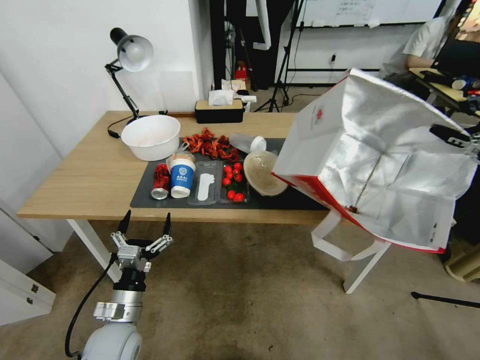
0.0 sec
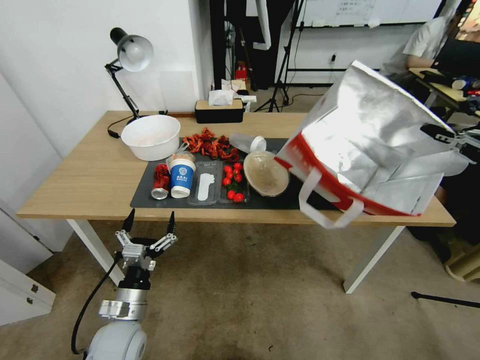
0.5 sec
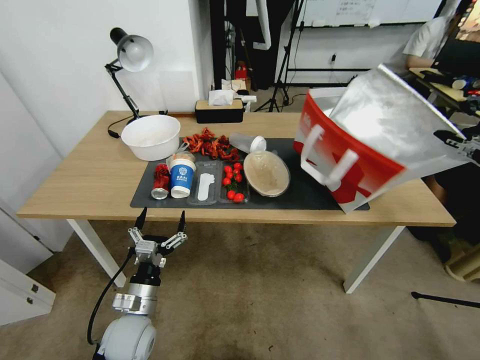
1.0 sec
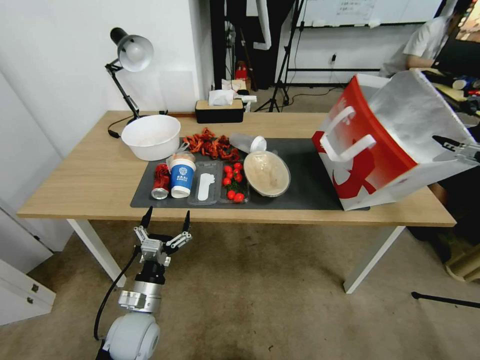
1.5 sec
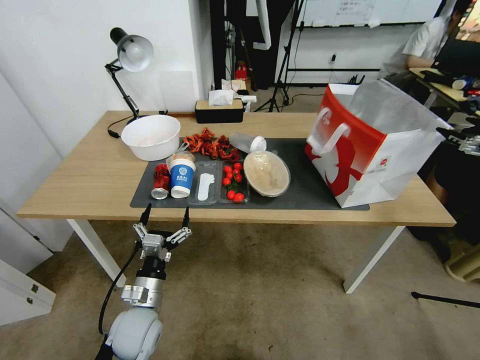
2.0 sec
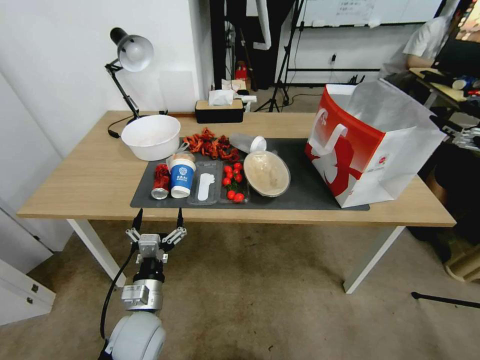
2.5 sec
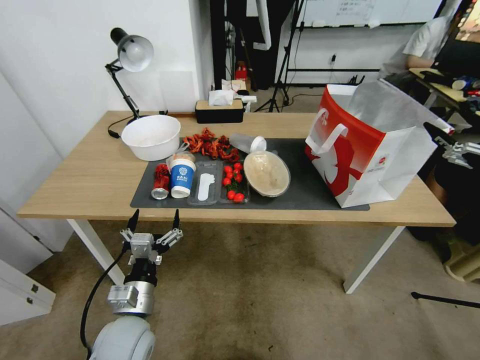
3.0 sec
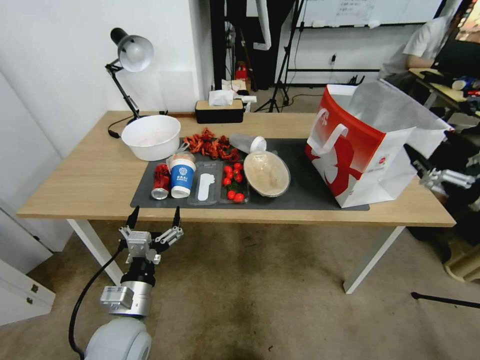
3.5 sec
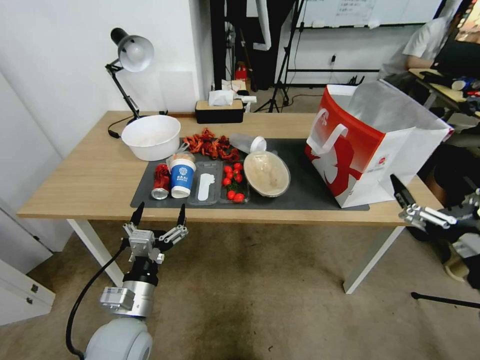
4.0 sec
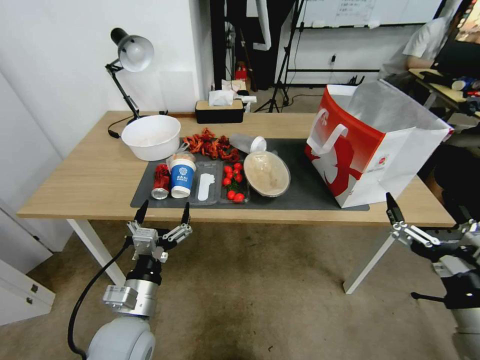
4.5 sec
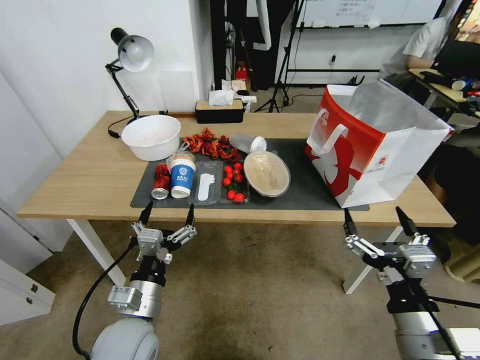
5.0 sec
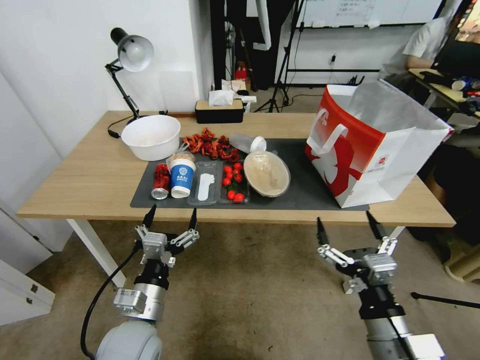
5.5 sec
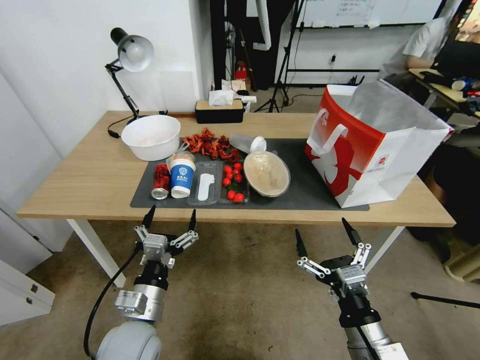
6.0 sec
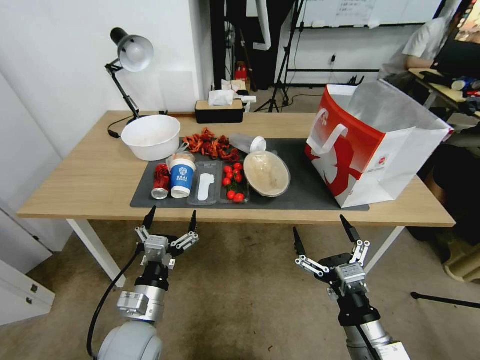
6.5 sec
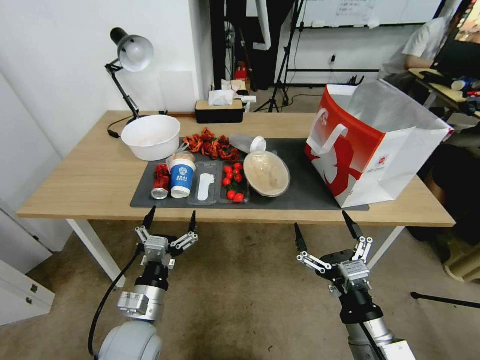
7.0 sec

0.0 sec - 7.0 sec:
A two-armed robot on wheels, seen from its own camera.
Task of the whole recording: Pick up the food delivery bag from the floor and place it on the table.
0.0 sec - 2.0 sec: The right gripper changes place by approximately 5 cm, and opens.
2.0 sec - 3.5 sec: The right gripper travels to the left and backward by about 20 cm; the left gripper moves upward, approximately 5 cm.
3.5 sec - 5.0 sec: The right gripper travels to the left, downward and backward by approximately 20 cm.
5.0 sec - 7.0 sec: The right gripper moves approximately 5 cm.

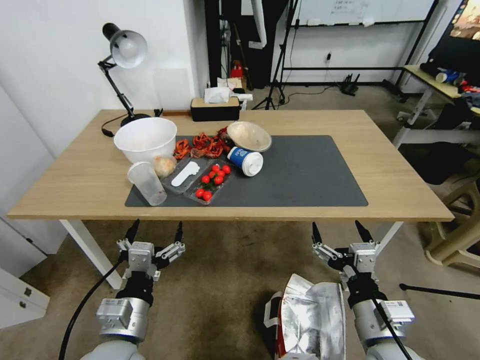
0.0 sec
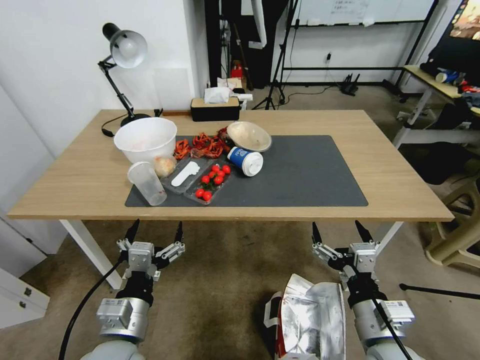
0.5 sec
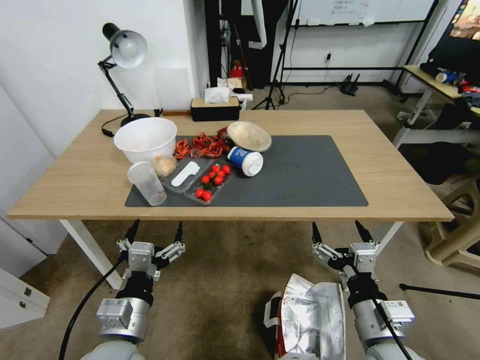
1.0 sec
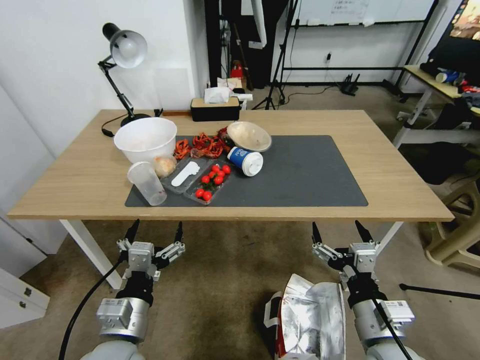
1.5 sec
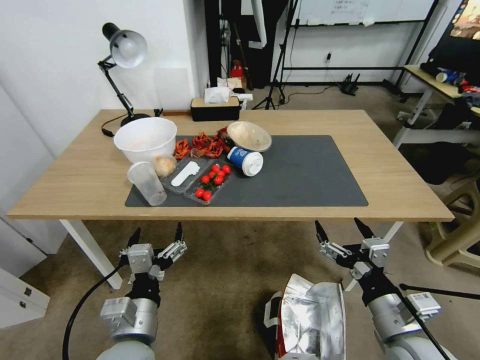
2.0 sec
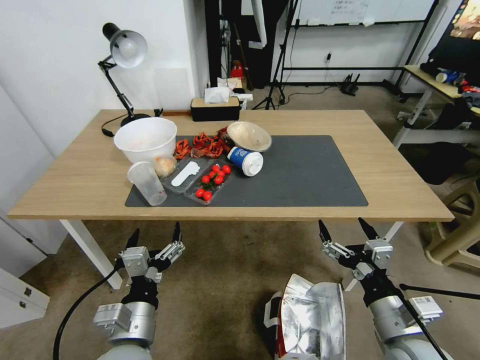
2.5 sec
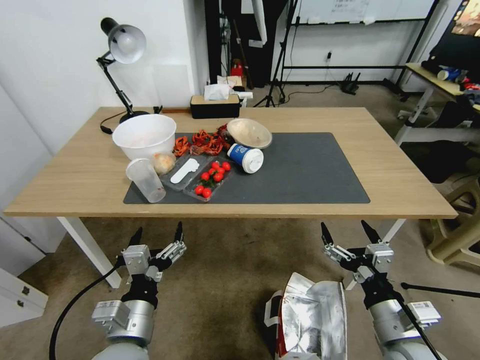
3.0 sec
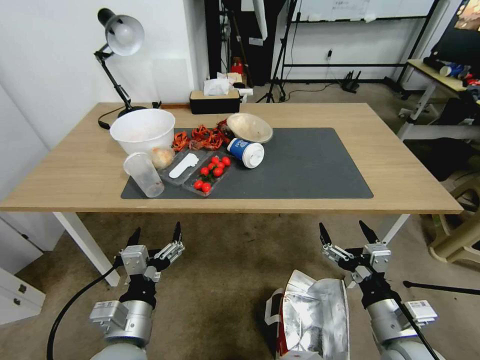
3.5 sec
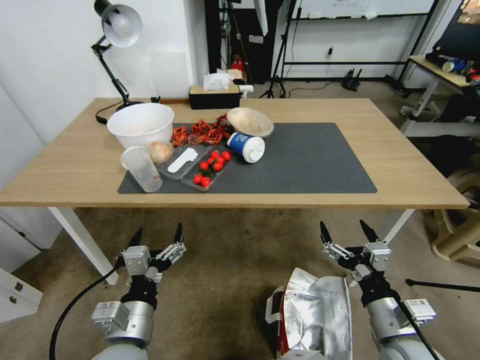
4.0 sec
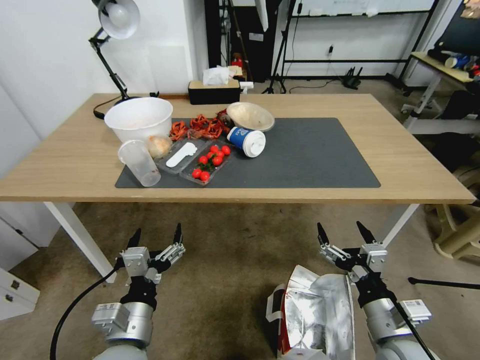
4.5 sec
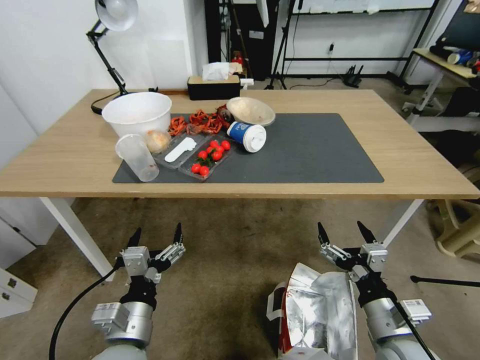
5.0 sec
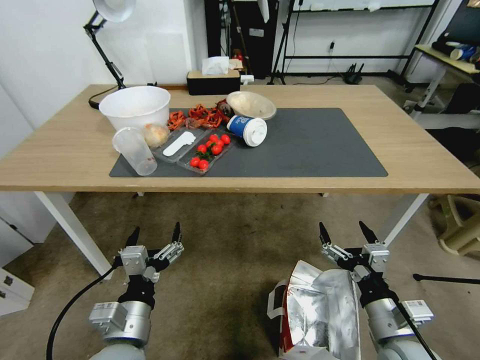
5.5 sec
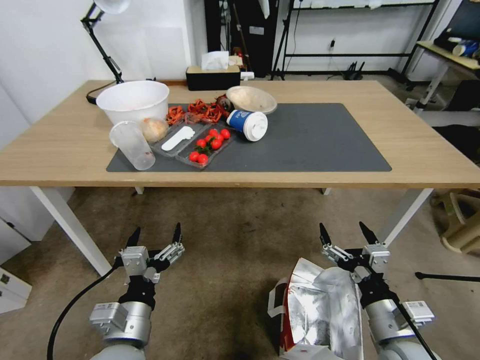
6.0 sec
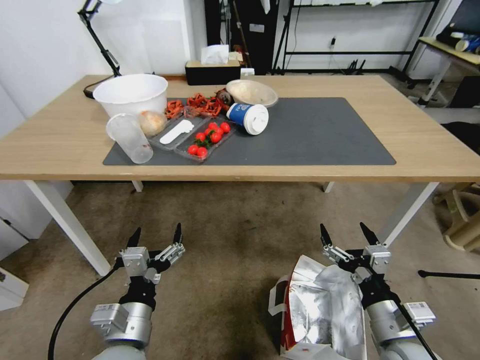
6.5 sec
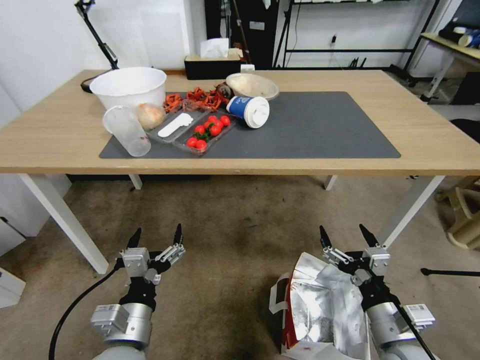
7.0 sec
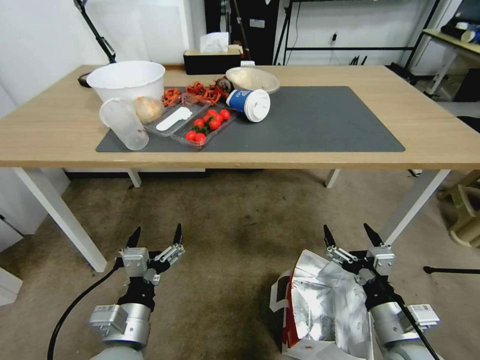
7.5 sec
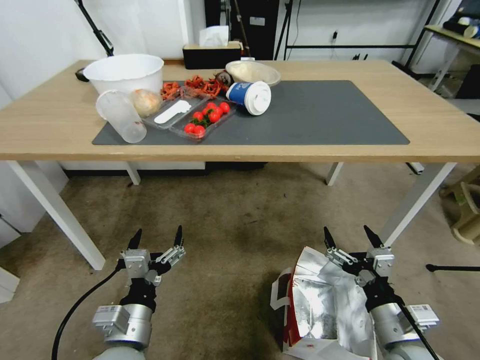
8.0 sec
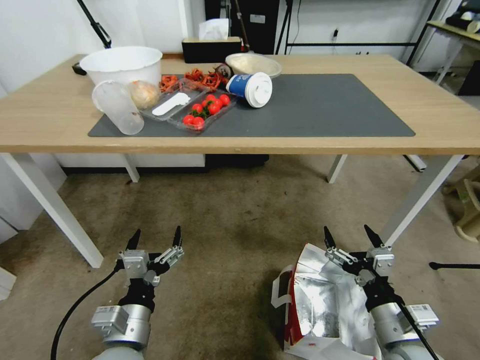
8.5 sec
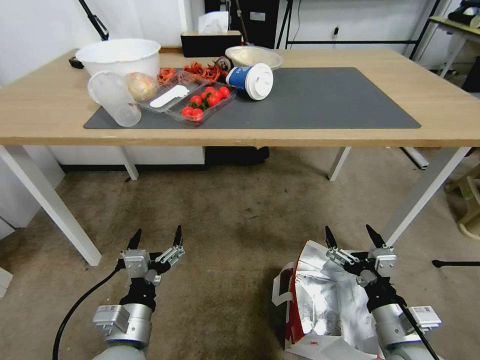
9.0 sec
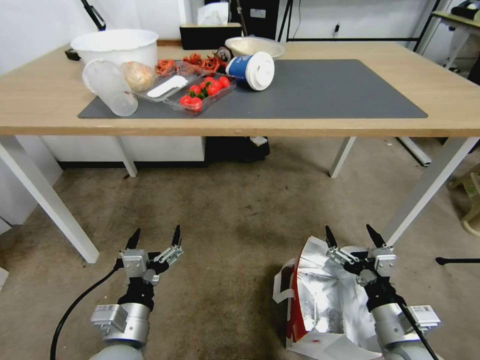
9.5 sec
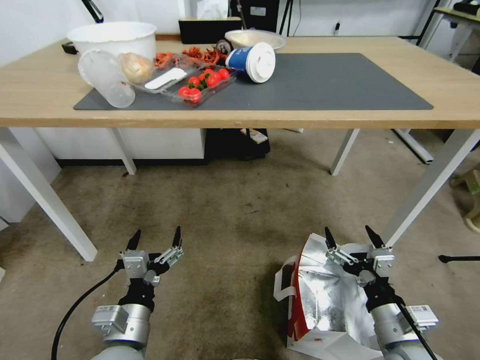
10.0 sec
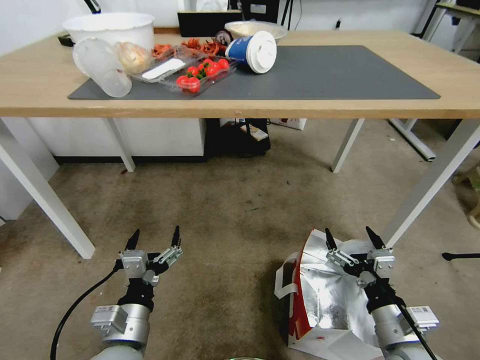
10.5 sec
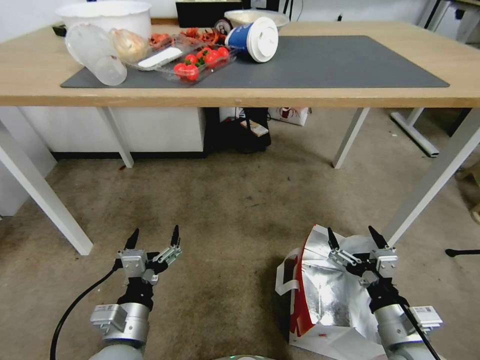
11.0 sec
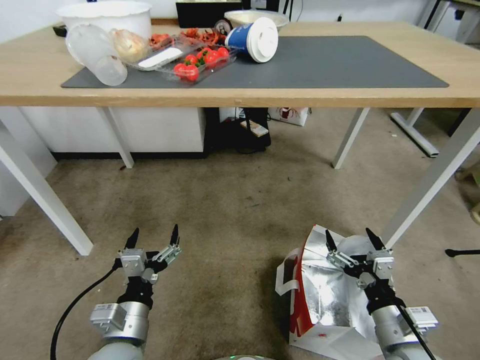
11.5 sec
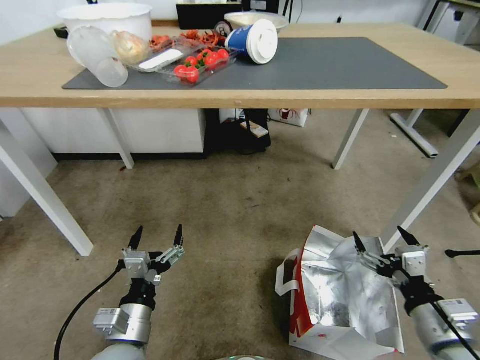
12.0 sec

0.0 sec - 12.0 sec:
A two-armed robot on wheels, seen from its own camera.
Task of the whole recording: Pick up the food delivery bag from the floor and place it on the table.
10.0 sec - 12.0 sec: The right gripper travels to the right by about 5 cm.

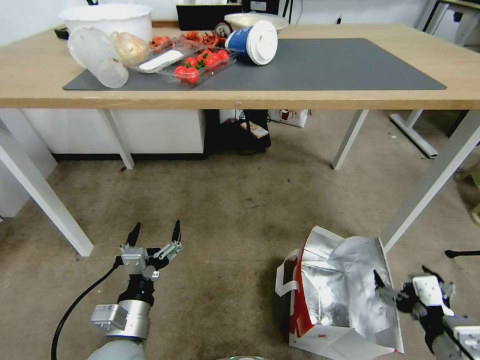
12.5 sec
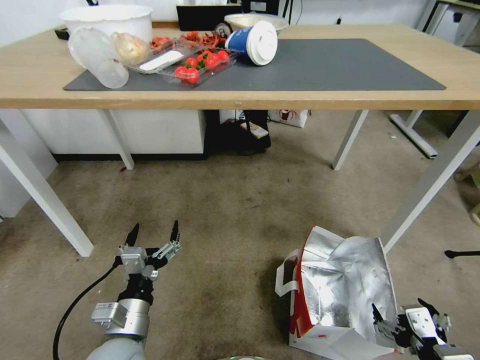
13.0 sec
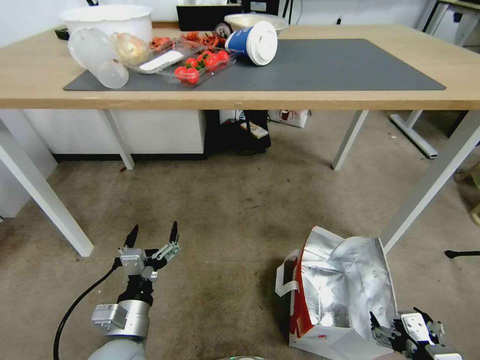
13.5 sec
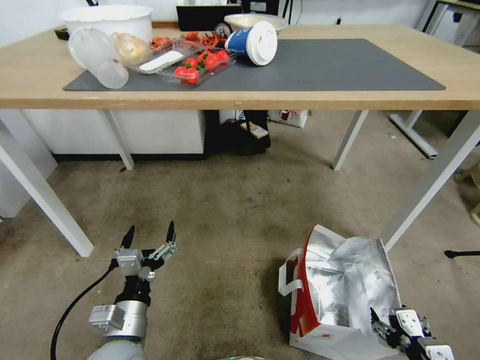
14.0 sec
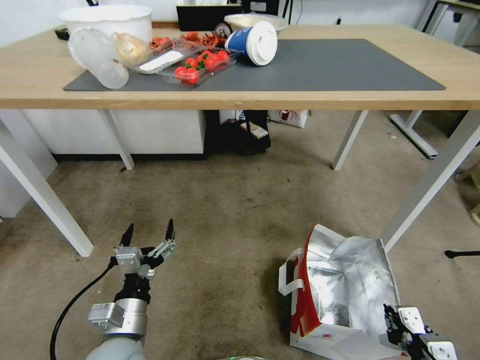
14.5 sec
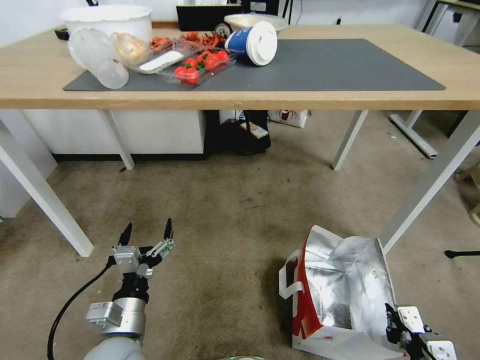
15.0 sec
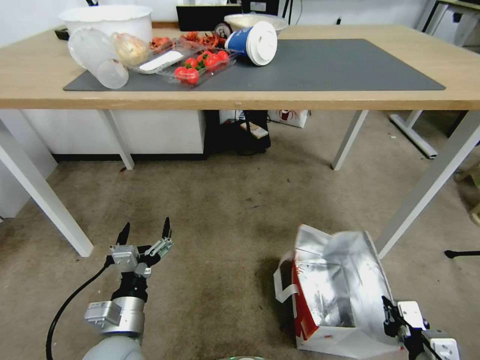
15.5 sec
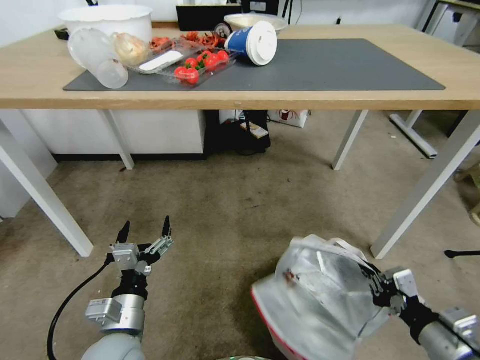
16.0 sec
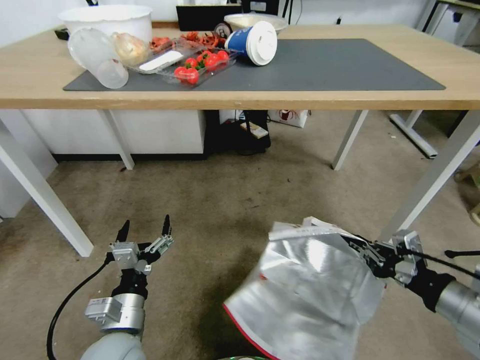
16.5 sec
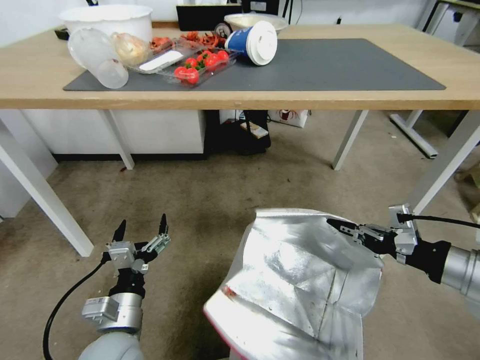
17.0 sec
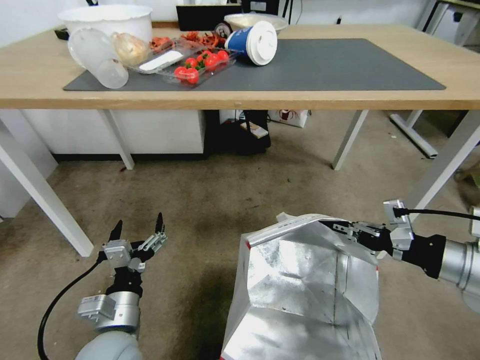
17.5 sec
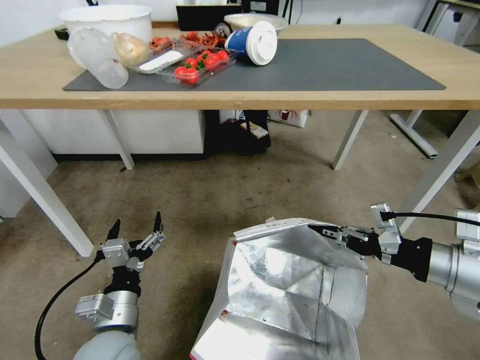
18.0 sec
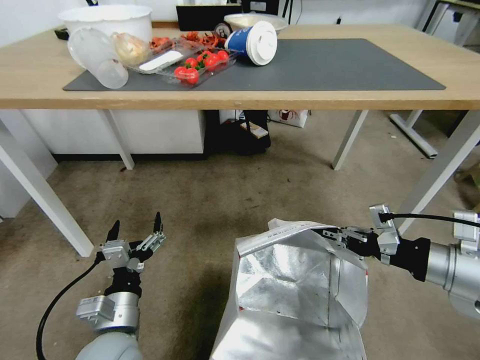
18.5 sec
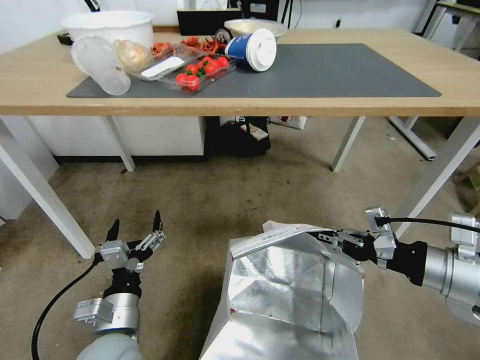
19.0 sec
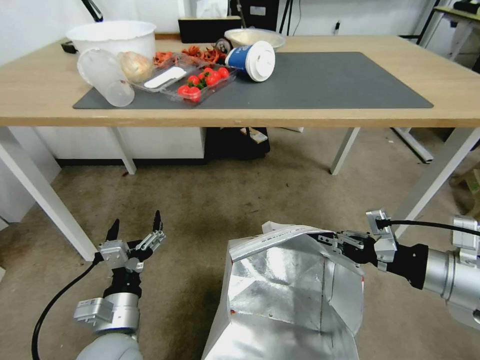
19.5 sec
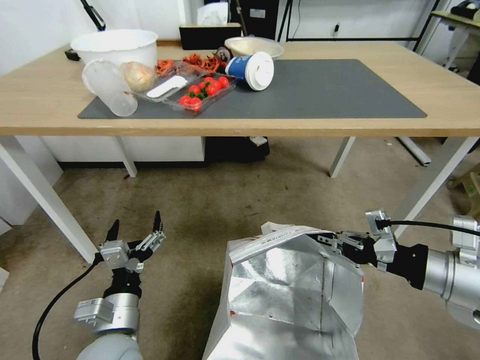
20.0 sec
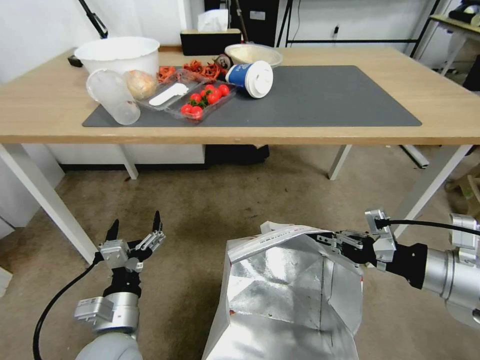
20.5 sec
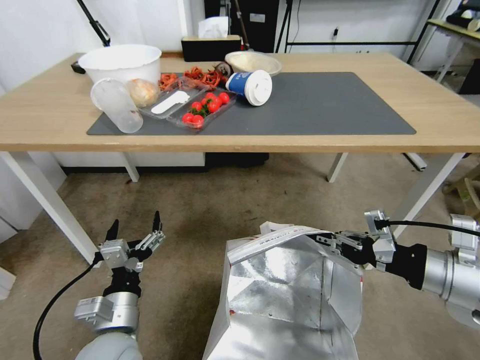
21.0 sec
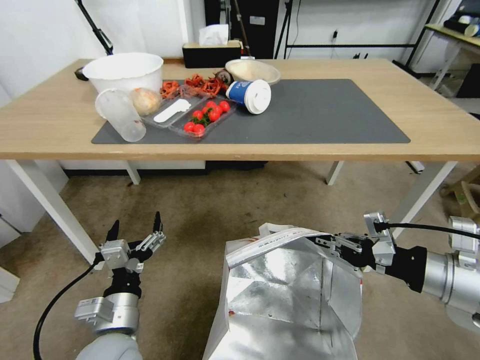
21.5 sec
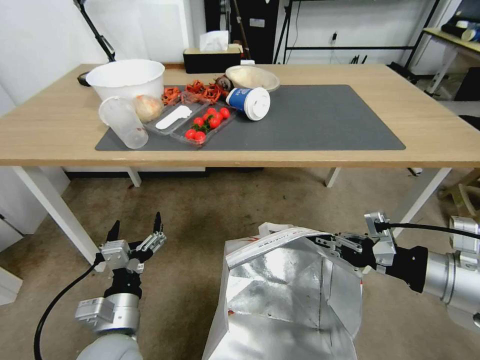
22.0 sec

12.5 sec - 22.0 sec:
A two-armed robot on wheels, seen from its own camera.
Task of the whole recording: Pick up the food delivery bag from the floor and place it on the table.
12.5 sec - 14.5 sec: The right gripper travels downward by approximately 10 cm, and closes up.
14.5 sec - 16.5 sec: The right gripper travels upward and forward by roughly 15 cm.
16.5 sec - 18.0 sec: The right gripper shifts roughly 10 cm forward and upward.
